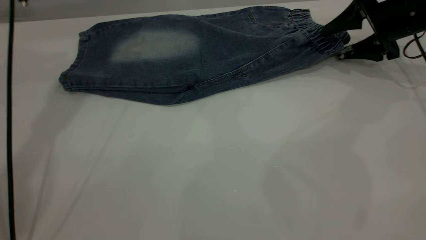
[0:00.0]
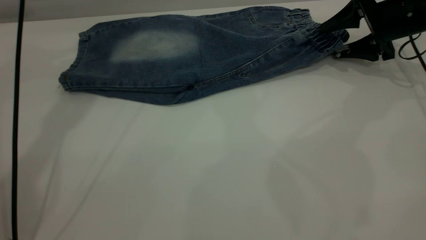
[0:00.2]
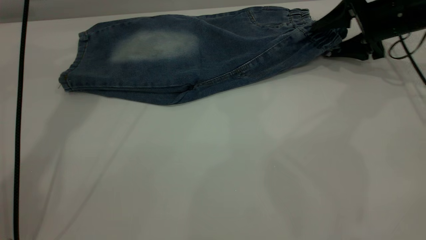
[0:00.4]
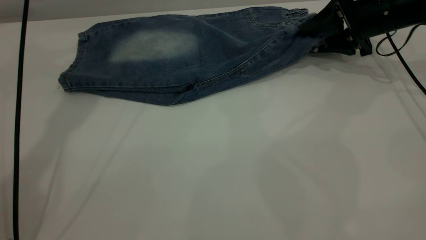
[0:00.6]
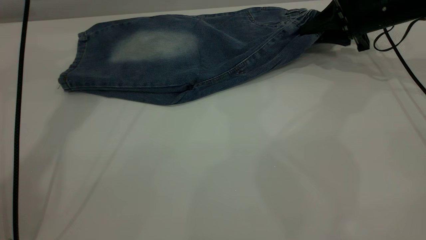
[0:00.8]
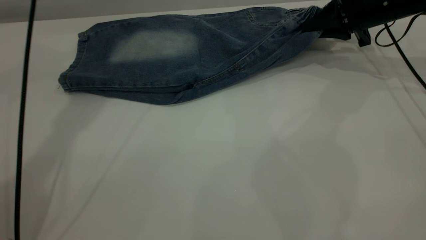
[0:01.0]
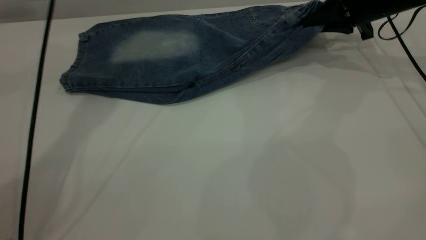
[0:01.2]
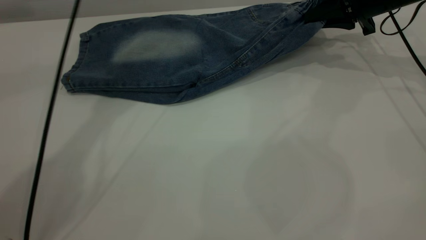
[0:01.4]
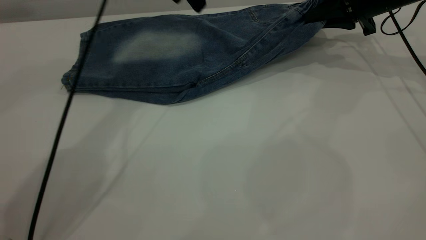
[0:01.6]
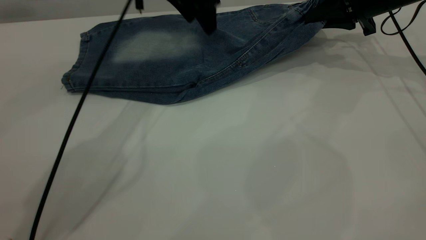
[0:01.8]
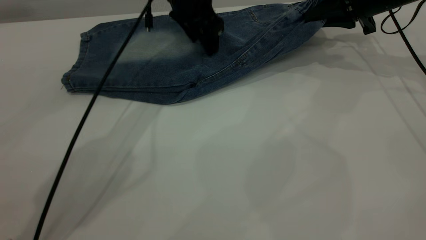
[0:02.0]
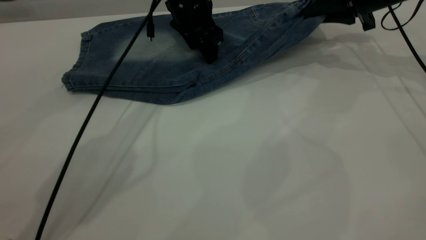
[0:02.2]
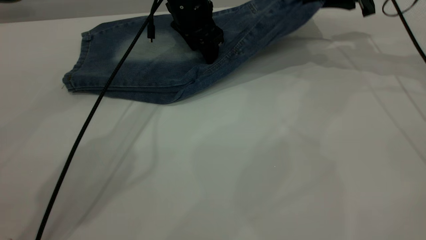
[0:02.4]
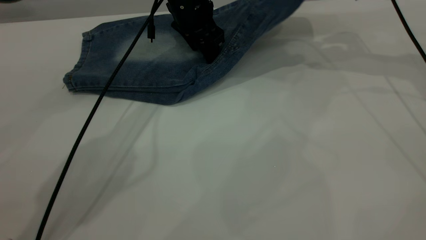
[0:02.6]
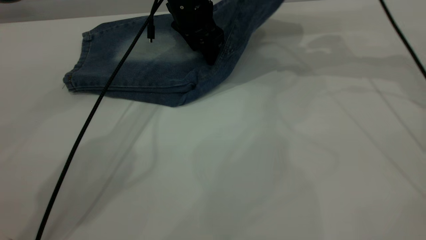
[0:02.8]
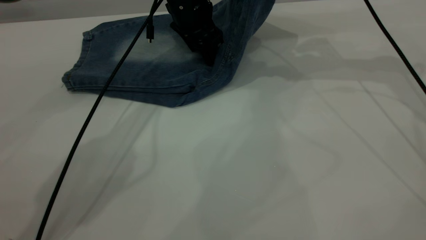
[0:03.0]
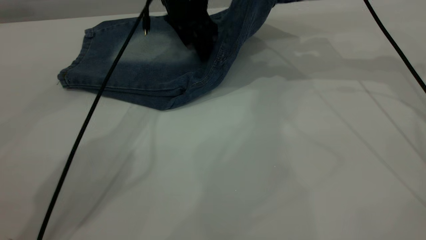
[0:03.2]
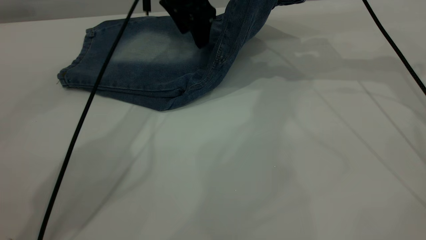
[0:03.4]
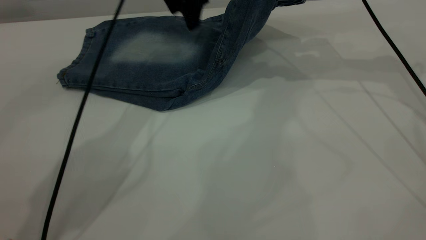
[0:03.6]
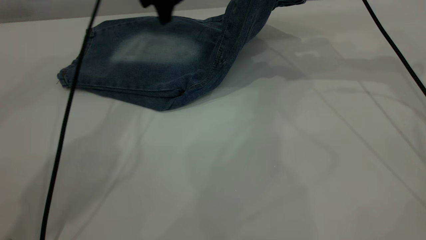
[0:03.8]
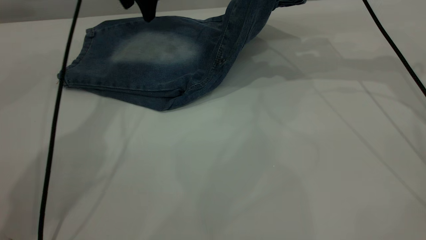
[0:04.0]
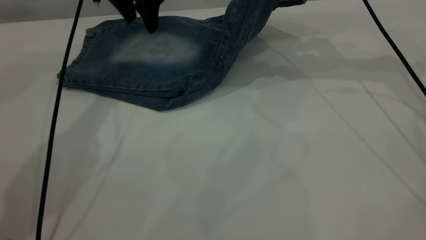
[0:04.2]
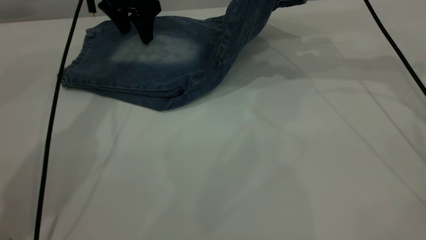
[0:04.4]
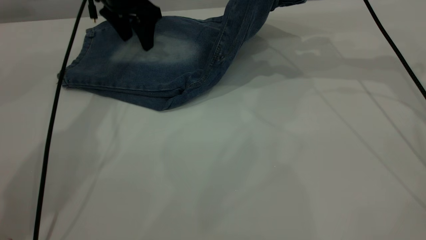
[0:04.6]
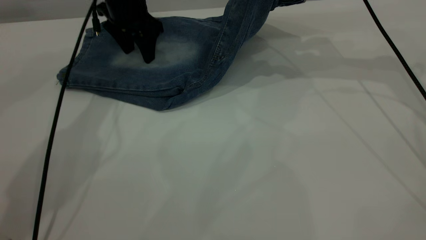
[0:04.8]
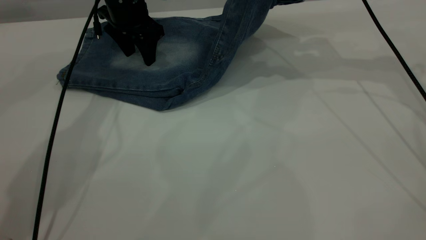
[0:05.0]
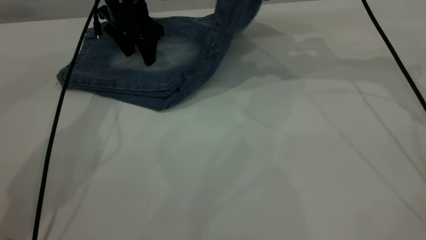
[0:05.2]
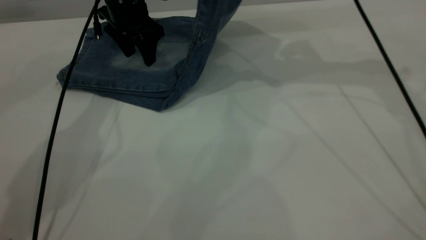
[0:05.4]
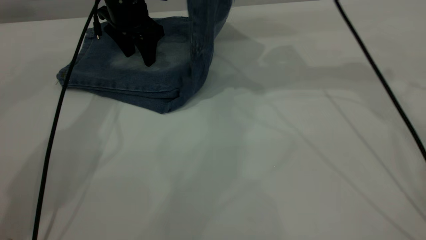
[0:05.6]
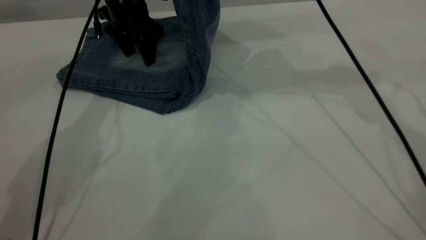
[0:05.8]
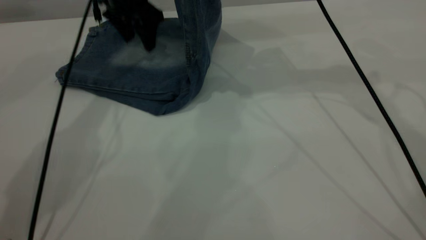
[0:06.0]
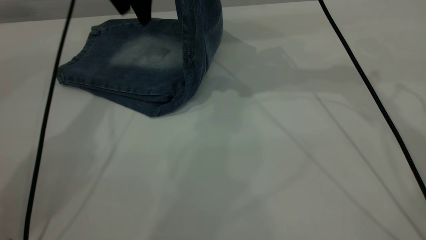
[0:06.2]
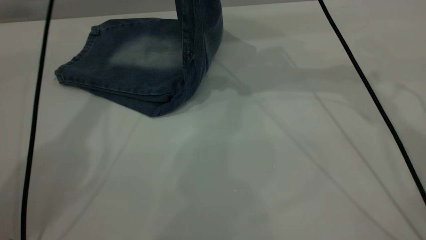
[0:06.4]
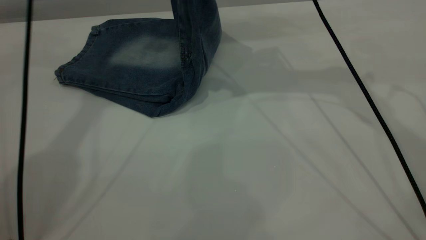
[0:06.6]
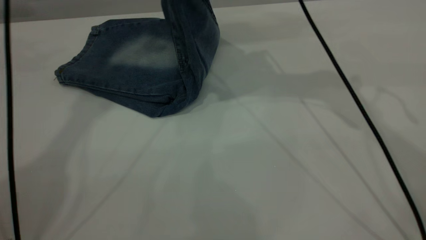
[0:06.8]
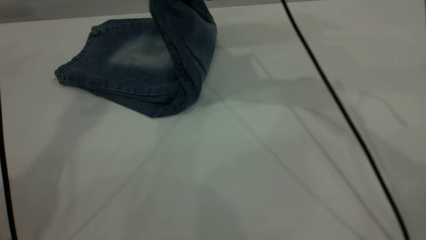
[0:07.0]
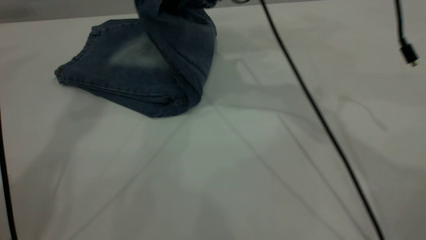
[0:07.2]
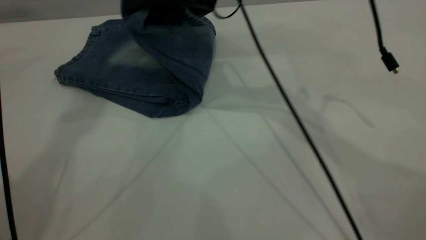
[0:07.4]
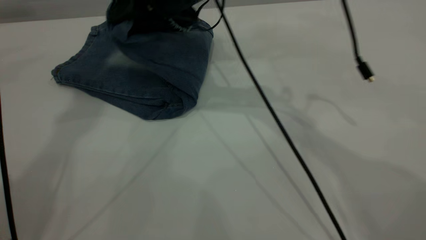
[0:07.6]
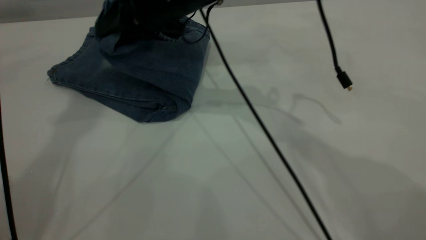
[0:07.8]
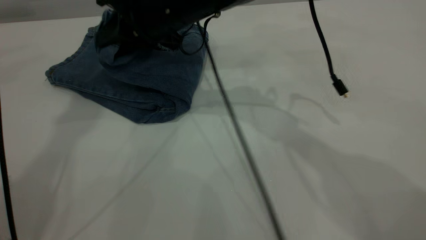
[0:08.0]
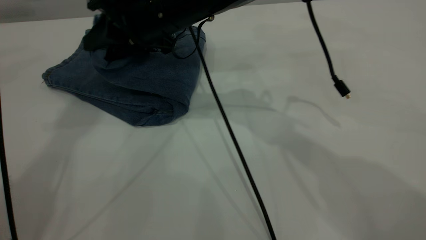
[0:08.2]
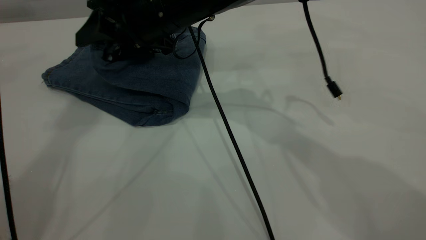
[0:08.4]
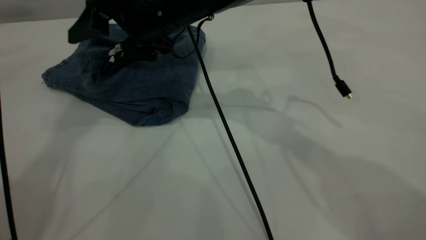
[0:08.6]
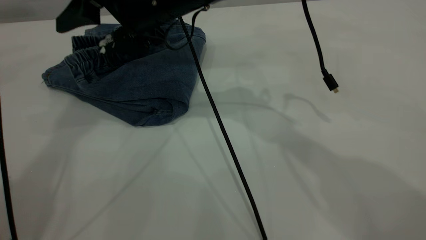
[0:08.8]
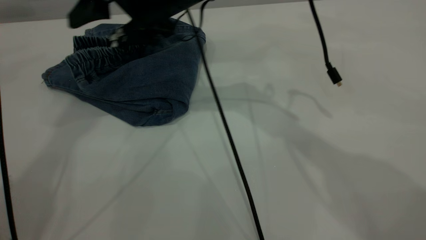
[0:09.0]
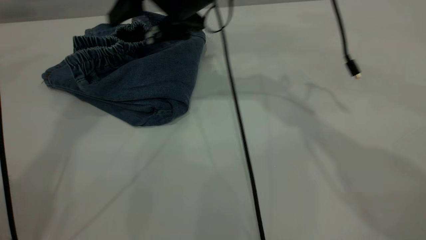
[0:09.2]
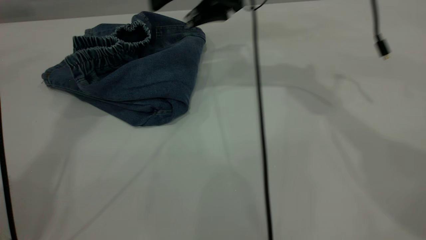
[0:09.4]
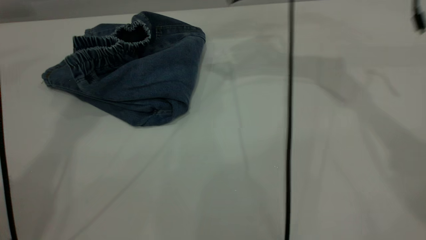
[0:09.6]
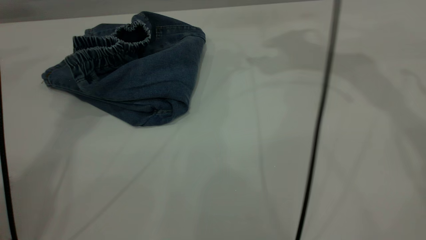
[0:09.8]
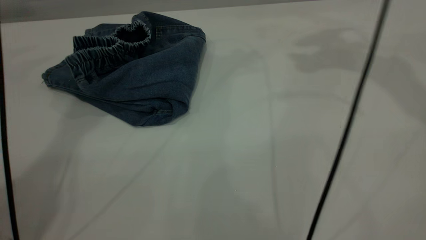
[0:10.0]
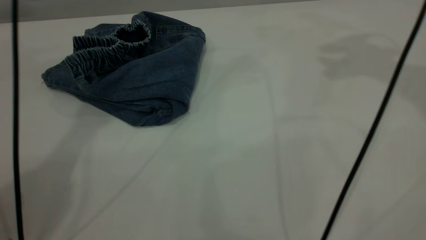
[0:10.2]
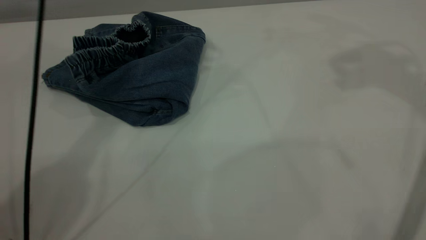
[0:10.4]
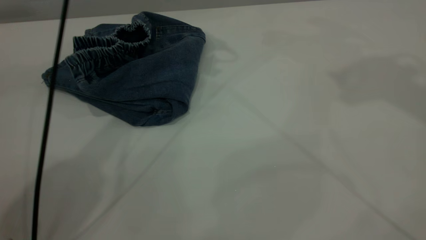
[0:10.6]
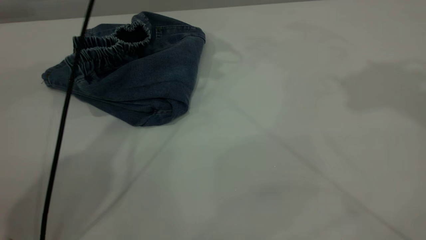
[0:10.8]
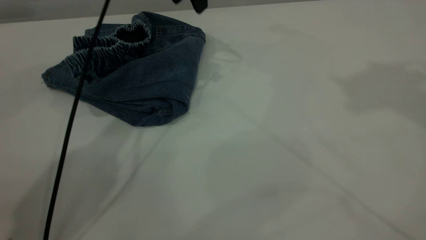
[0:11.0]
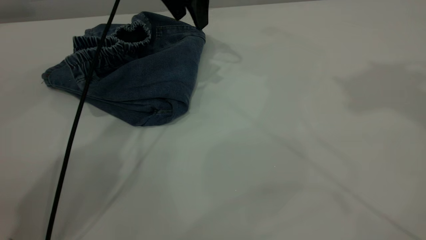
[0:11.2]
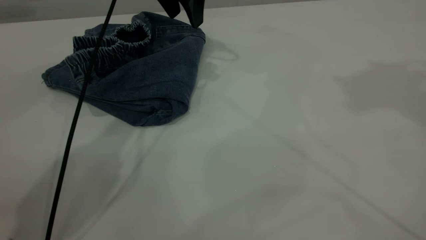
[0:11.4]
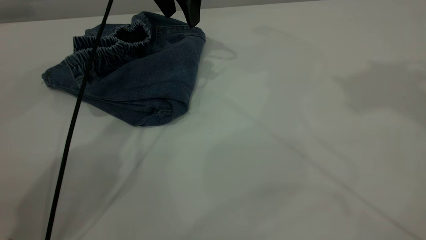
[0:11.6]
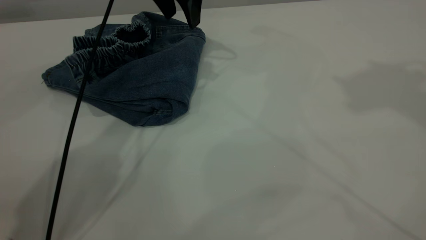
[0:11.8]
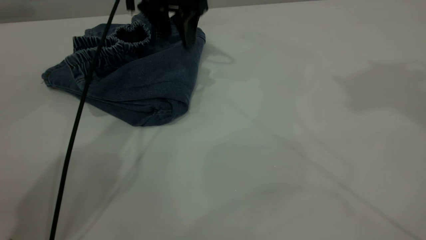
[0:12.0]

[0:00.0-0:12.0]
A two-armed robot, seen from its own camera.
Step, 0:00.0 to 0:09.6: Fold your pants from right to left.
0:00.0 to 0:01.6: The right gripper changes place by approximately 5 cm, and closes. Meanwhile the left gripper heads to the right, covering approximately 15 cm.
0:01.6 to 0:03.0: The left gripper goes about 10 cm downward. The right gripper travels upward and to the left by roughly 10 cm.
0:03.0 to 0:04.4: The left gripper heads to the left, covering some 10 cm.
0:04.4 to 0:06.0: The right gripper travels to the left by some 10 cm.
0:06.0 to 0:07.6: The left gripper travels upward by approximately 25 cm. The right gripper is displaced to the left by some 15 cm.
0:07.6 to 0:09.0: The right gripper opens.
0:09.0 to 0:10.4: The right gripper is displaced upward and to the right by roughly 40 cm. The left gripper is displaced downward and to the right by some 10 cm.
0:10.4 to 0:12.0: The right gripper moves approximately 5 cm. Meanwhile the left gripper moves downward, some 20 cm.

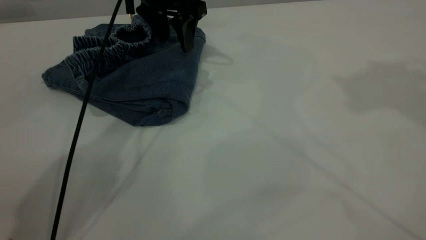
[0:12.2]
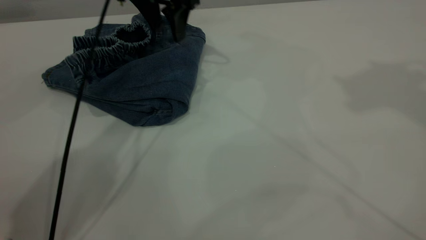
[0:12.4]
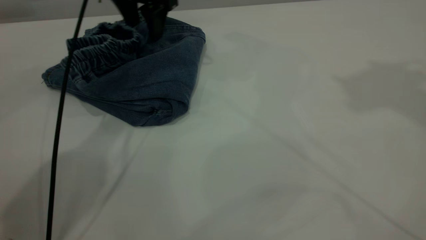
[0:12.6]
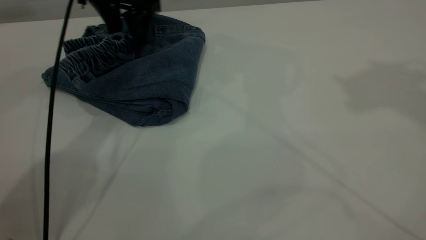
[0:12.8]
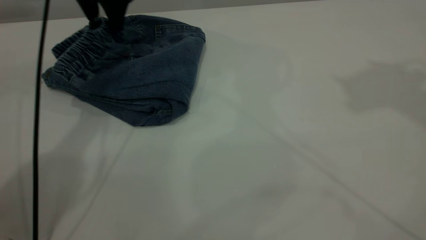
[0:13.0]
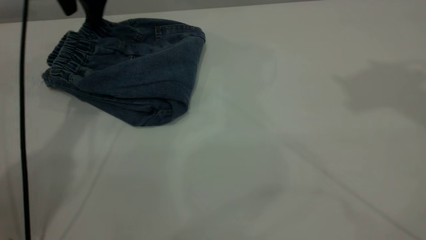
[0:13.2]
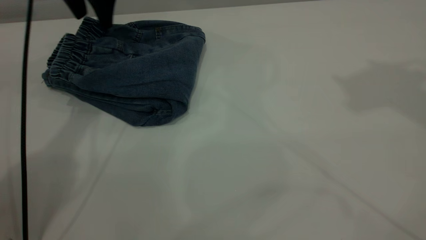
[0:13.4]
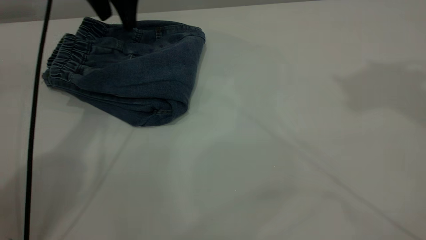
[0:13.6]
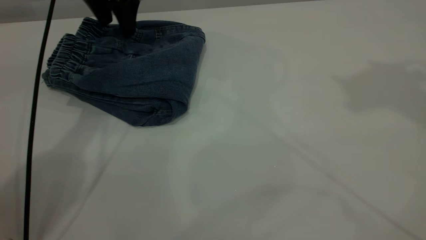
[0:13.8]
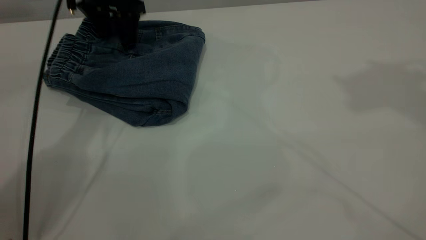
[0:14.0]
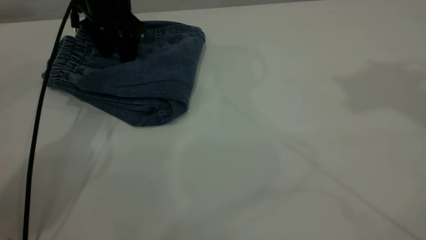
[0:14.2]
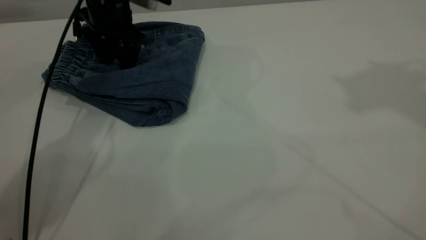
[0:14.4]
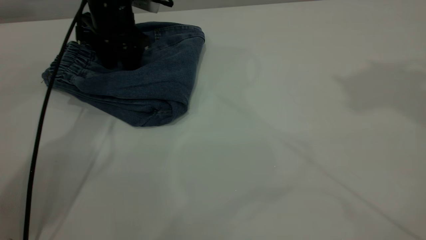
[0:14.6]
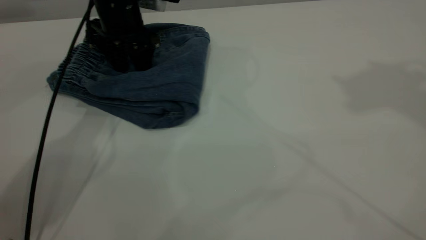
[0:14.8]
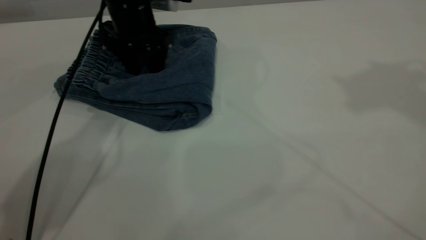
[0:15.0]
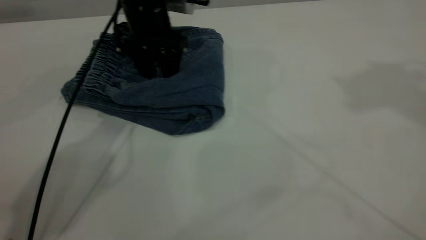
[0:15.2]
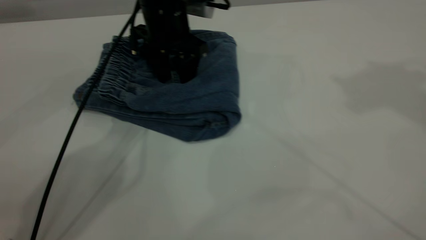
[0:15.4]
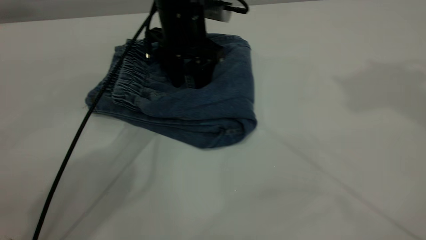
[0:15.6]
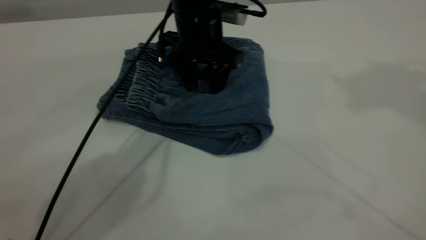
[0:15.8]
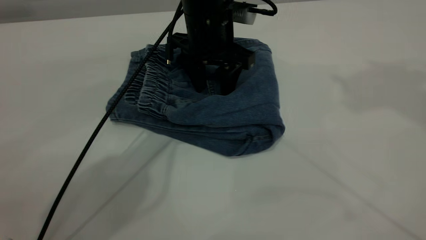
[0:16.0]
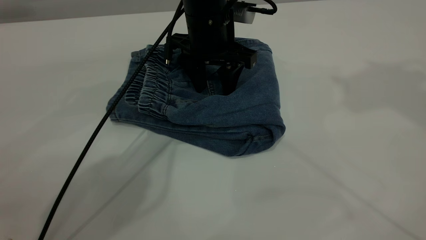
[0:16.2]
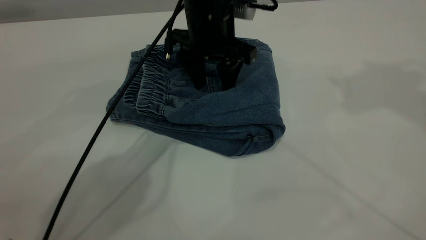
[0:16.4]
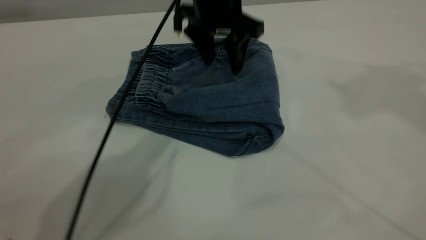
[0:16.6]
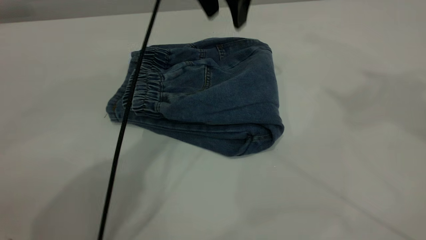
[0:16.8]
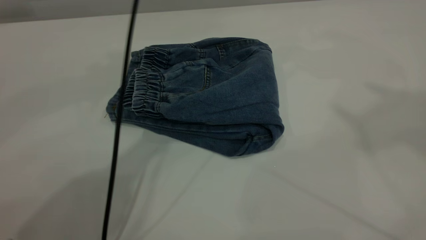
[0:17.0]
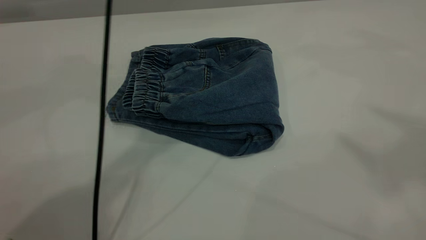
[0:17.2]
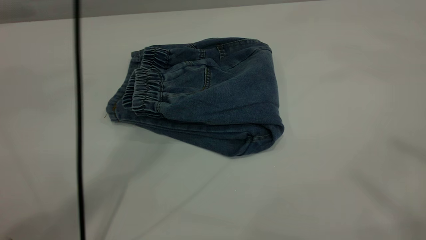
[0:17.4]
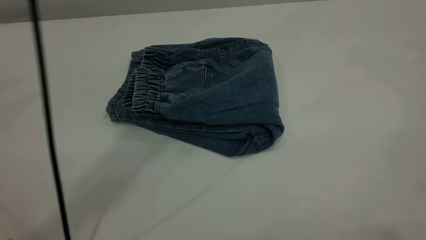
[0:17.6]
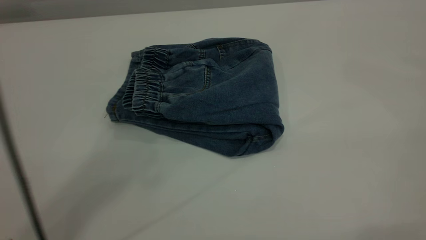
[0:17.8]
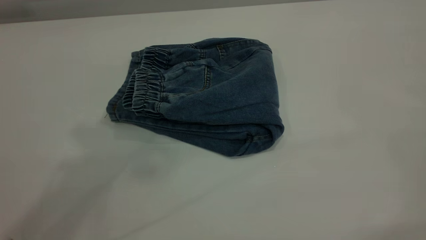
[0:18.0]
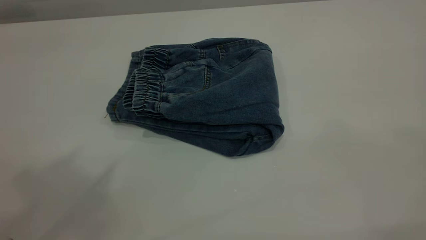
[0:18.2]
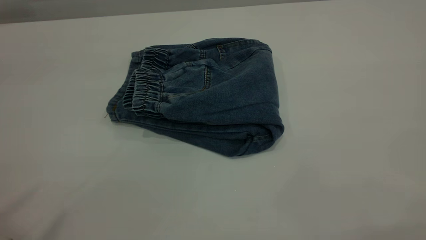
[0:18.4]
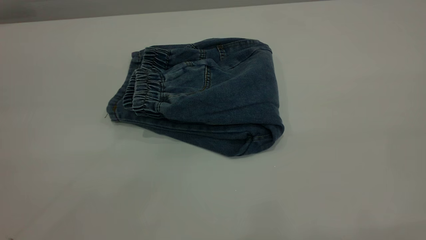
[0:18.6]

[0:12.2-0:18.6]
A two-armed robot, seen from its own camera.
0:12.2 to 0:13.8: The left gripper heads to the left, covering some 10 cm.
0:13.8 to 0:15.4: The left gripper goes approximately 10 cm to the right and downward.
0:15.4 to 0:17.0: The left gripper shifts about 15 cm upward. Meanwhile the right gripper travels backward and upward by about 10 cm.
0:17.0 to 0:18.6: The left gripper shifts roughly 50 cm backward, to the left and upward.
